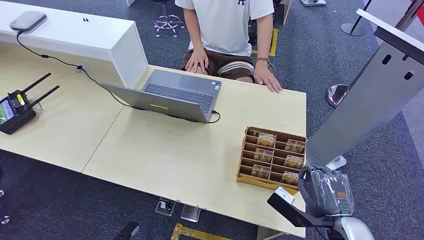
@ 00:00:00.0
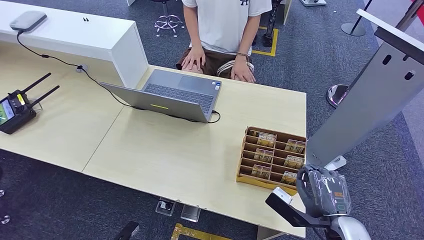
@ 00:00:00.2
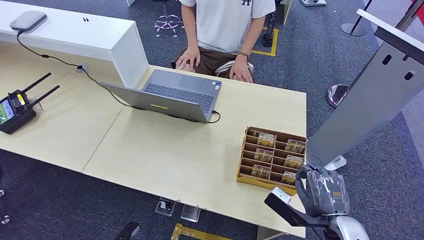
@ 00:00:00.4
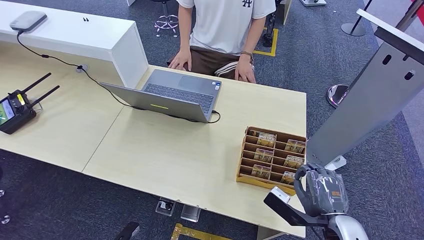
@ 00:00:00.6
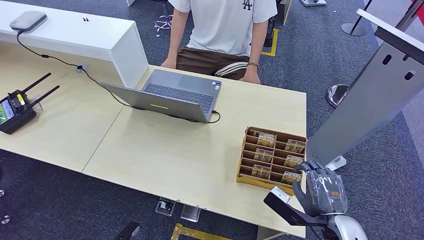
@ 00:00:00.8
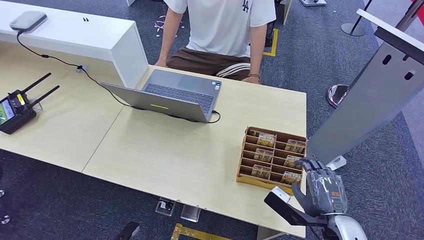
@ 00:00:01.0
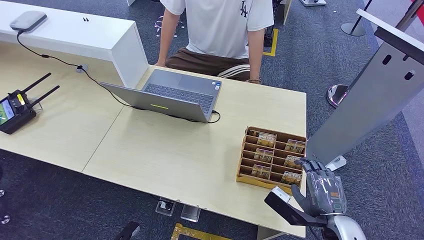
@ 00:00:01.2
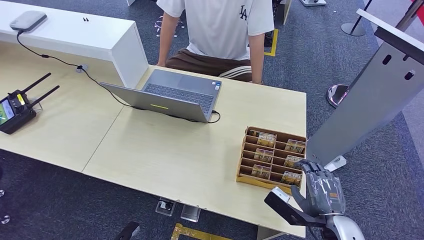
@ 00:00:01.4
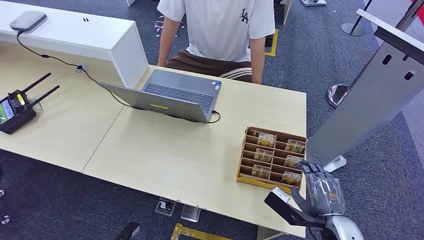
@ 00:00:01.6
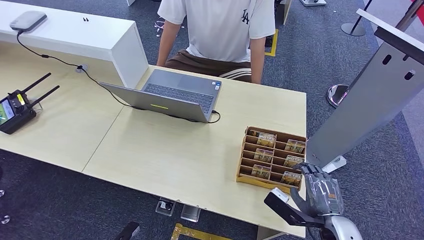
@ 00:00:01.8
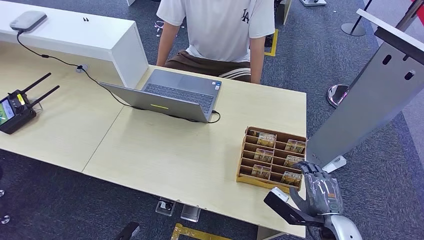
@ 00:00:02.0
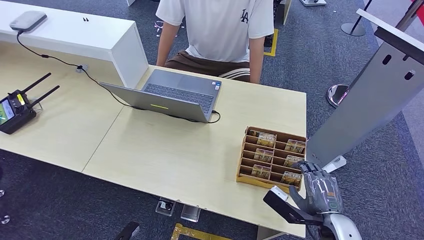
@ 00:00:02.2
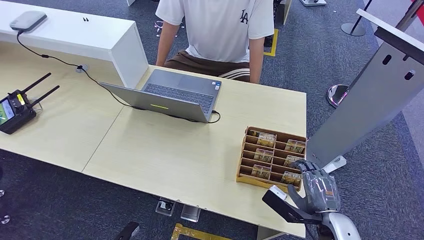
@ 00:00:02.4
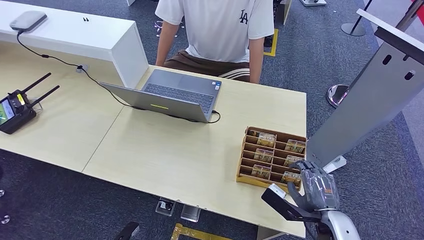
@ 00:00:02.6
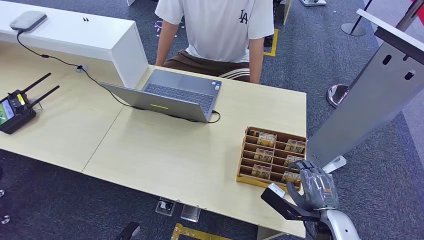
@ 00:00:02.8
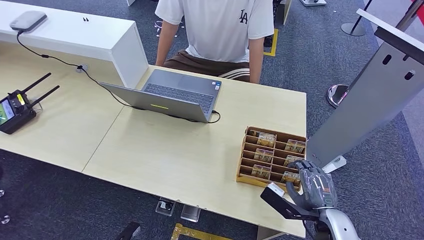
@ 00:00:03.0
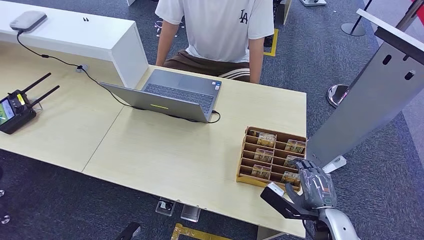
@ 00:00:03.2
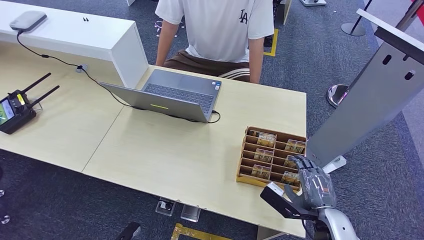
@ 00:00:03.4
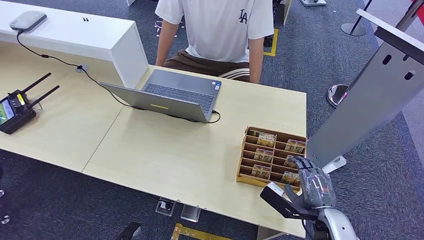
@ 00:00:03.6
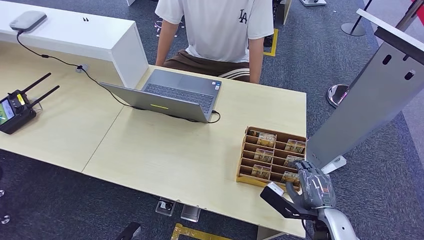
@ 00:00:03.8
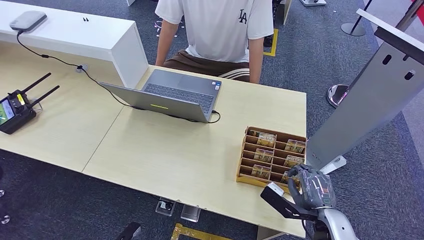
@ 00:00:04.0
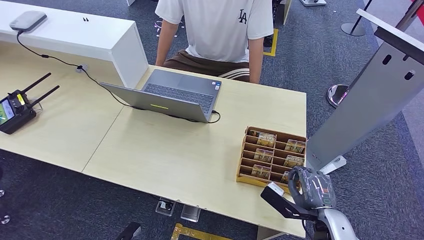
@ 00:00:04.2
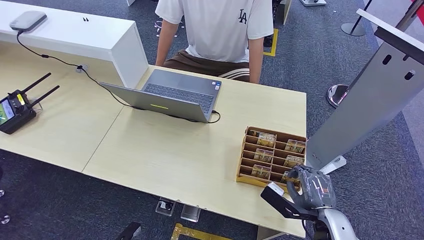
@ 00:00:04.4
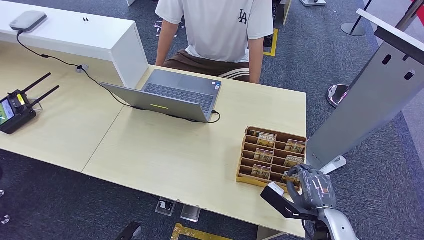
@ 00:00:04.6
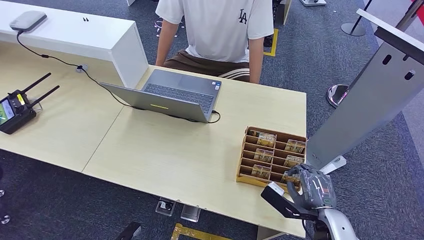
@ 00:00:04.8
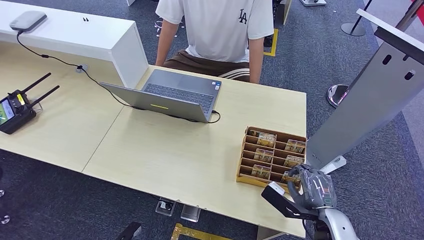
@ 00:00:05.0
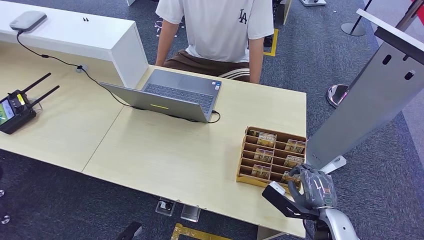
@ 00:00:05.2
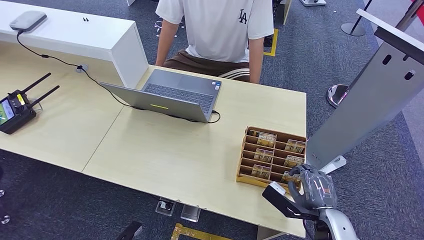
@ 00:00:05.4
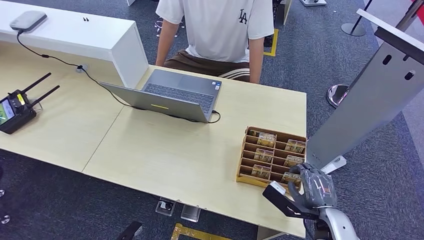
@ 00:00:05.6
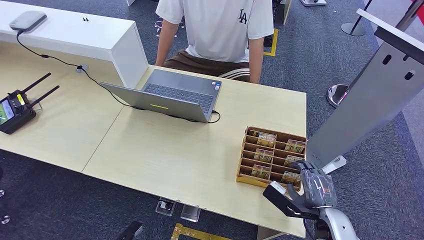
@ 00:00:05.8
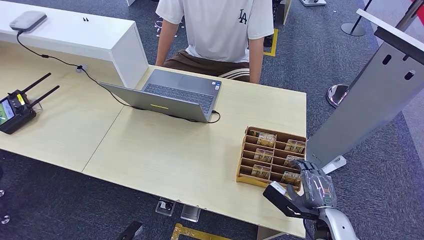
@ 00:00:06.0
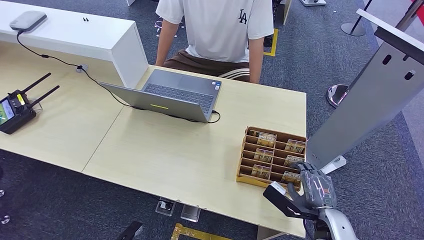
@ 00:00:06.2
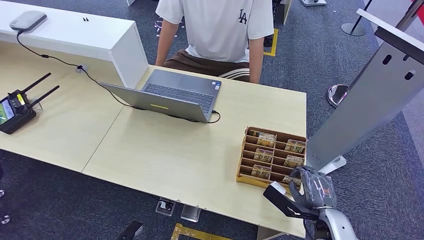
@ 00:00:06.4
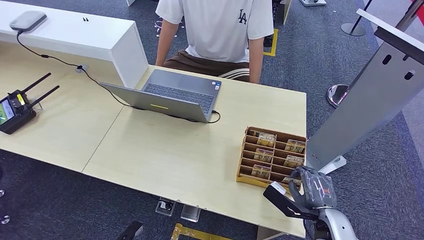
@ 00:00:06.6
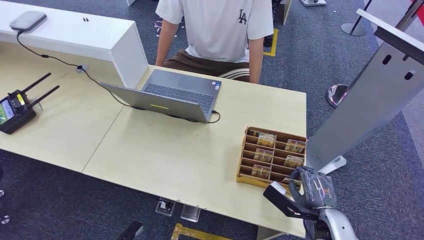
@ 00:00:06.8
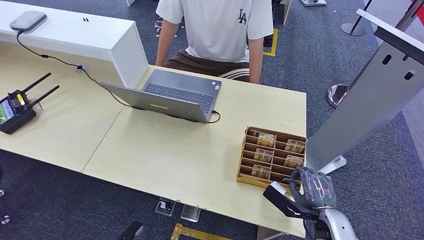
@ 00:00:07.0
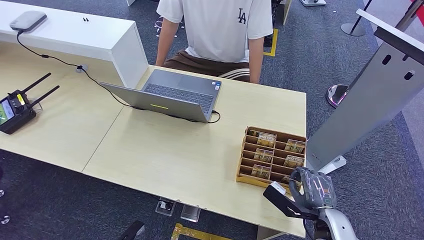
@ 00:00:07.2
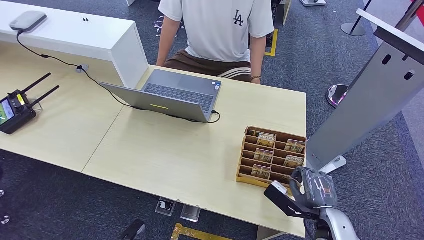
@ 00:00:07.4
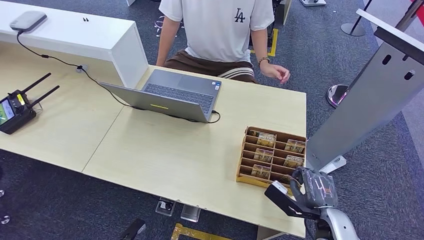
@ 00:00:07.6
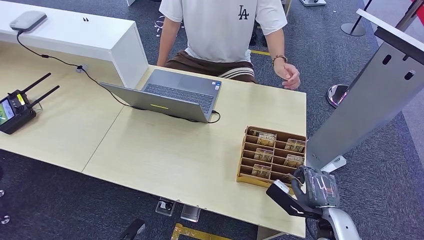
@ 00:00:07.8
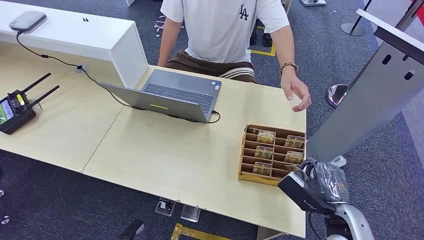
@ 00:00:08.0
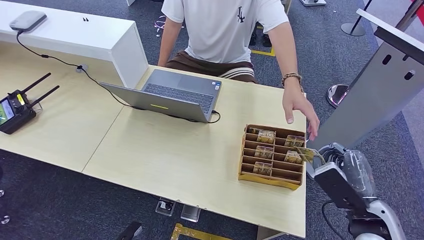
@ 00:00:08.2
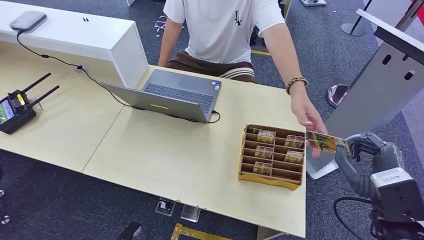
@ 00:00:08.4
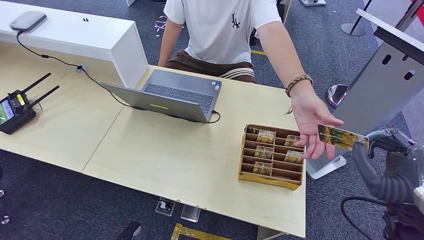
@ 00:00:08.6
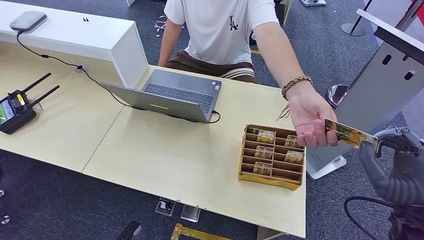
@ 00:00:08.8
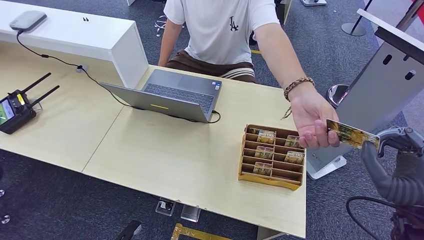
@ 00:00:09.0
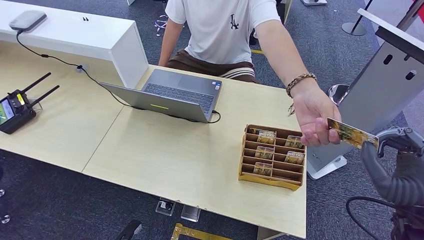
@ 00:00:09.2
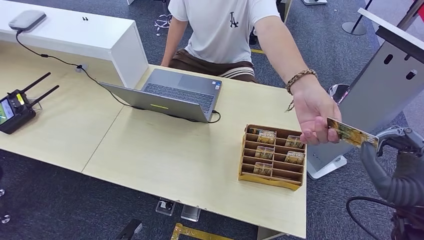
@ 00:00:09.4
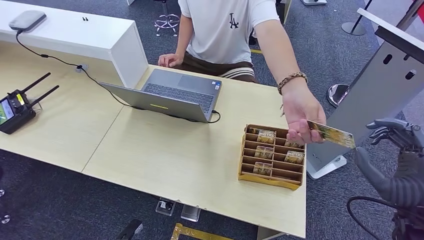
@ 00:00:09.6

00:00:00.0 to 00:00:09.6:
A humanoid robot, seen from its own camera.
Step, 00:00:00.0 to 00:00:07.0: Pick up the room card from the card holder.
Step, 00:00:07.4 to 00:00:09.6: Hand the room card to the target.
00:00:01.6 to 00:00:03.2: The hands make only small movements.
00:00:03.2 to 00:00:04.8: The two hands keep their place.
00:00:04.8 to 00:00:06.4: Neither hand changes place.
00:00:06.4 to 00:00:08.0: The right hand goes roughly 15 cm upward.
